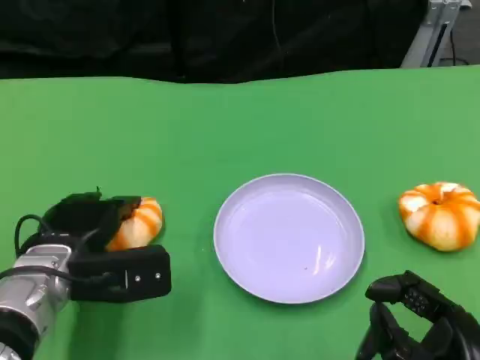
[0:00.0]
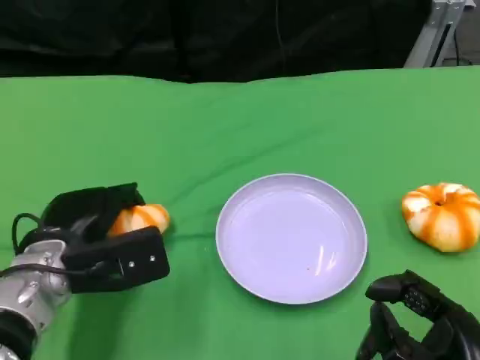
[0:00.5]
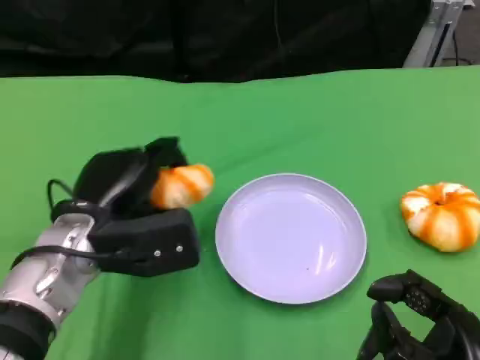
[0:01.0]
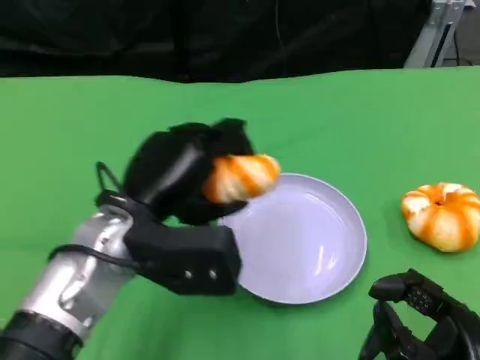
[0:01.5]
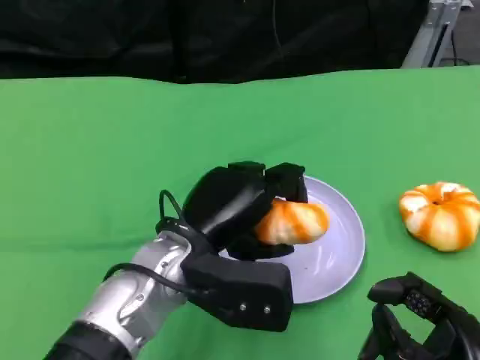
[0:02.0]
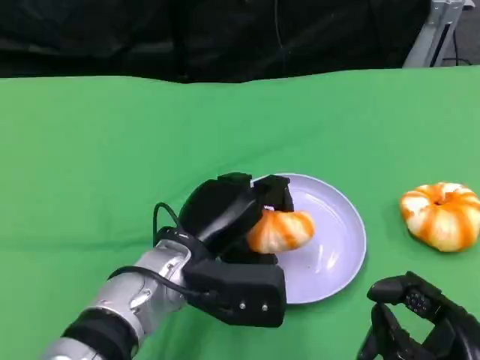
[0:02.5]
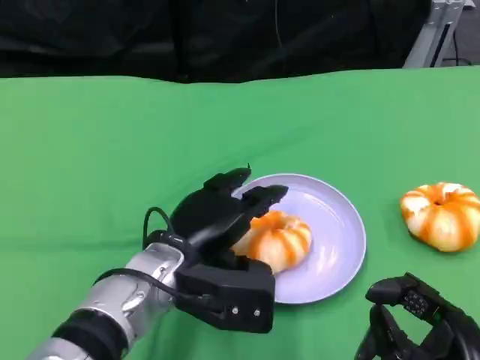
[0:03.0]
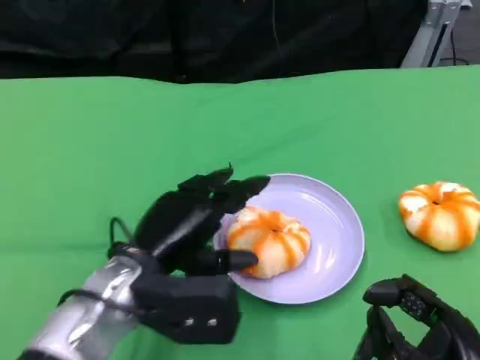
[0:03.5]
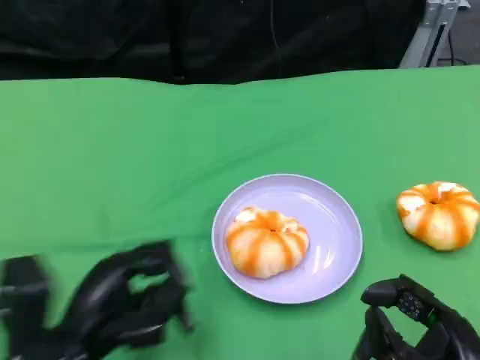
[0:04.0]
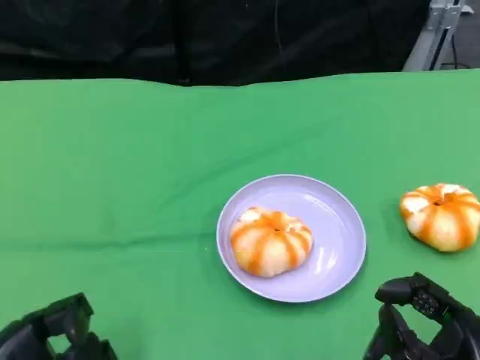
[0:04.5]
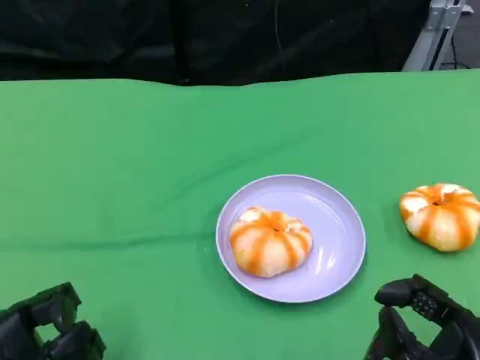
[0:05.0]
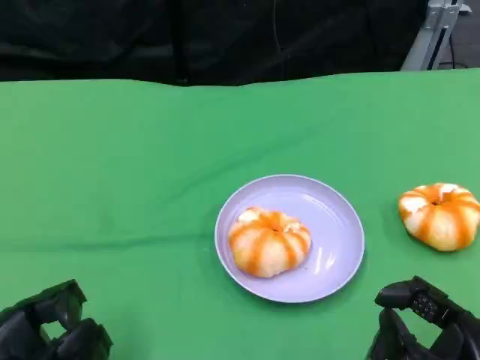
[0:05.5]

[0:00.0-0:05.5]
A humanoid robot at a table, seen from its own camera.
Task of the whole recording: Grasp the bread from the table and place it into the plate.
0:00.0 to 0:02.0: The left hand heads to the right, covering about 10 cm.
0:02.0 to 0:03.5: The left hand travels to the left by approximately 5 cm.
0:03.5 to 0:05.5: The left hand shifts some 20 cm to the left and backward.

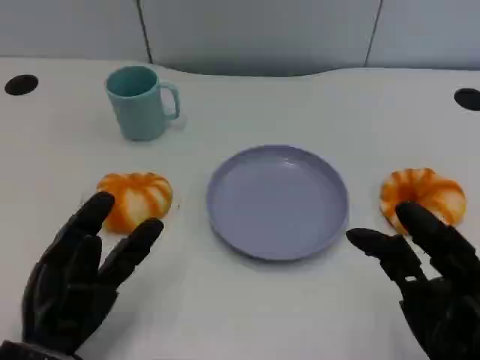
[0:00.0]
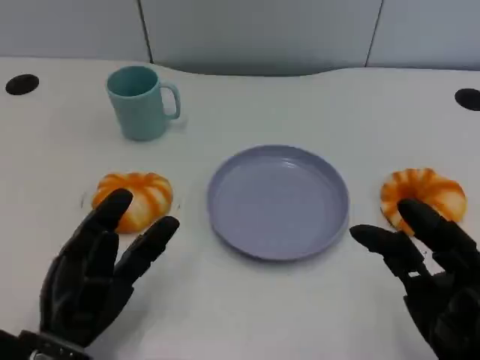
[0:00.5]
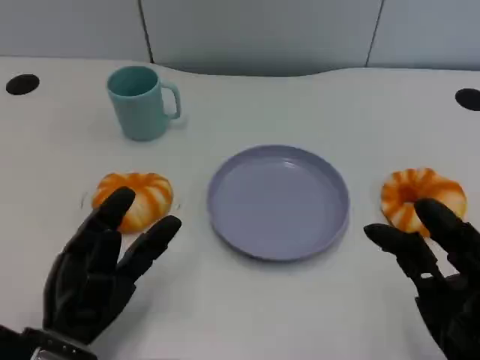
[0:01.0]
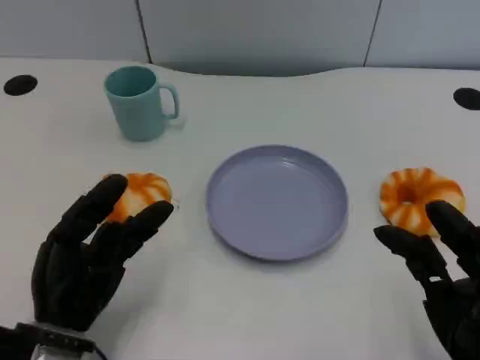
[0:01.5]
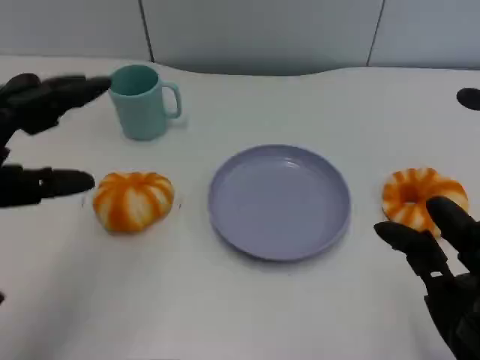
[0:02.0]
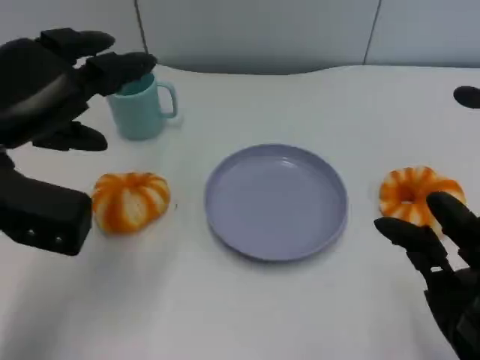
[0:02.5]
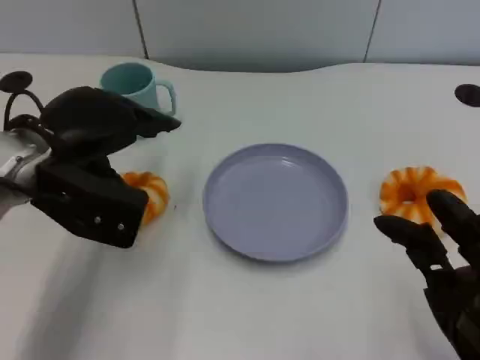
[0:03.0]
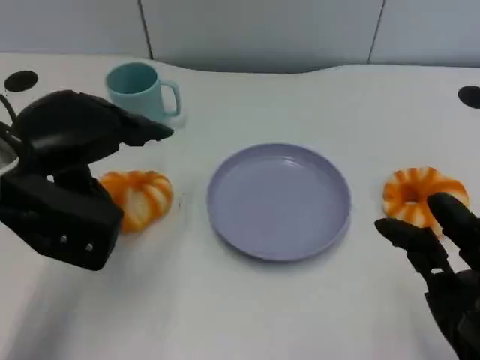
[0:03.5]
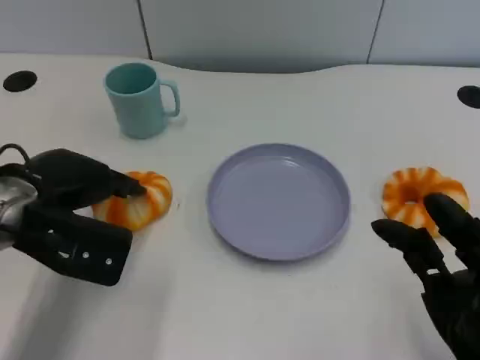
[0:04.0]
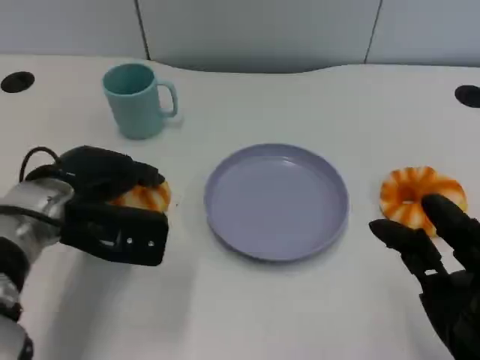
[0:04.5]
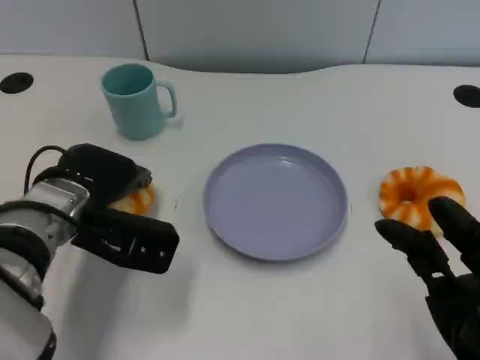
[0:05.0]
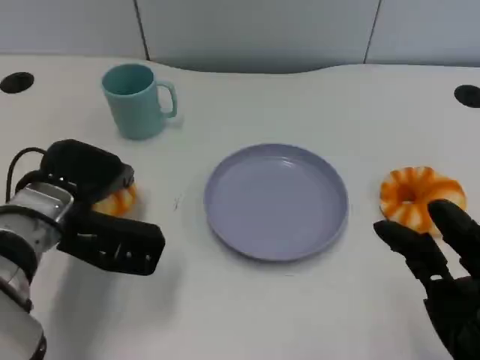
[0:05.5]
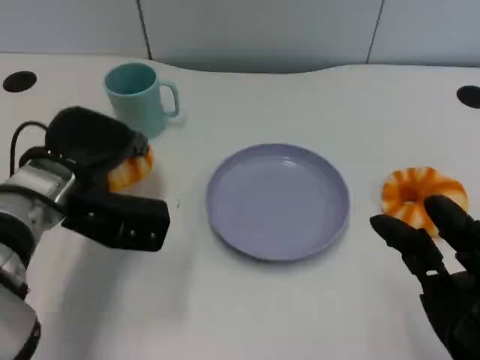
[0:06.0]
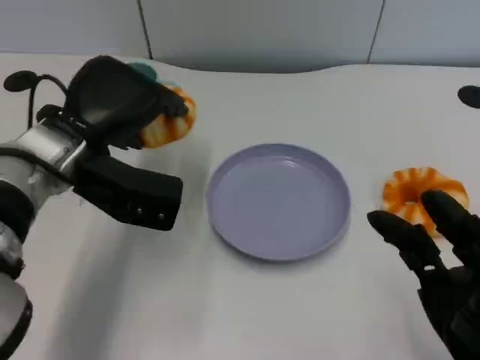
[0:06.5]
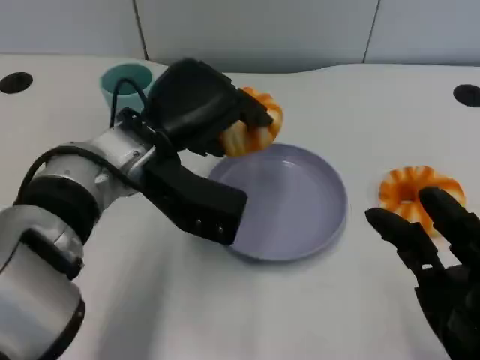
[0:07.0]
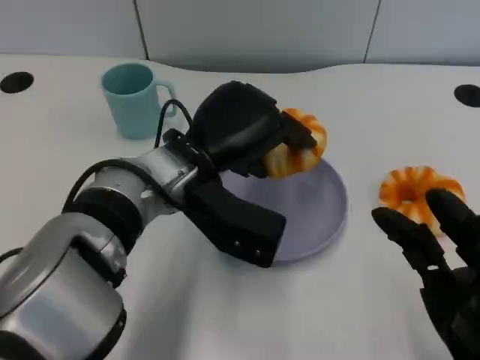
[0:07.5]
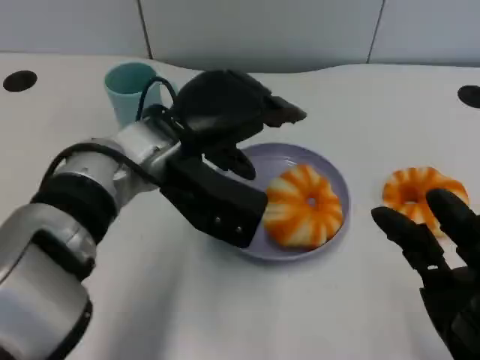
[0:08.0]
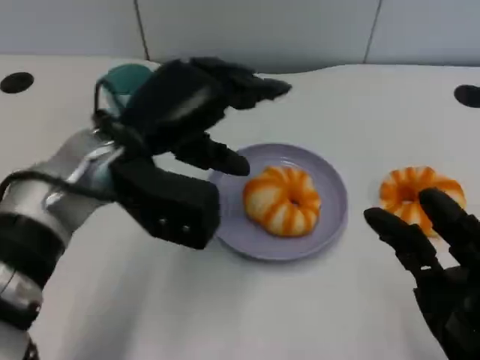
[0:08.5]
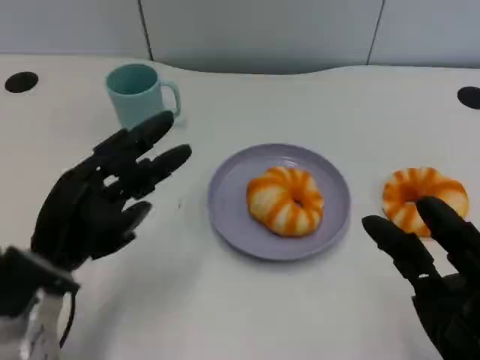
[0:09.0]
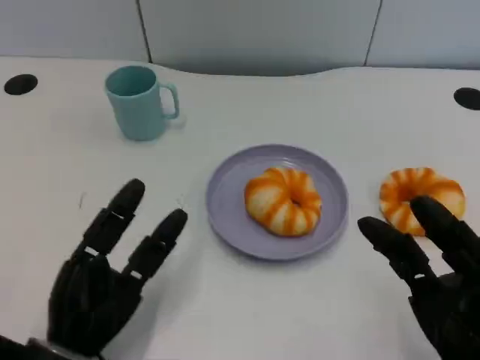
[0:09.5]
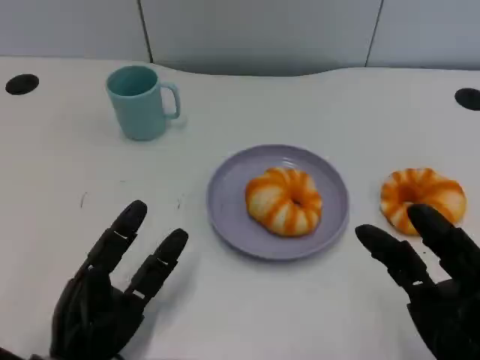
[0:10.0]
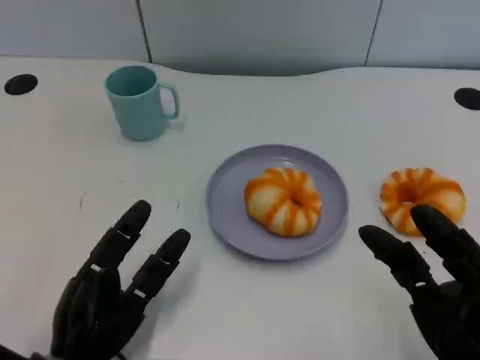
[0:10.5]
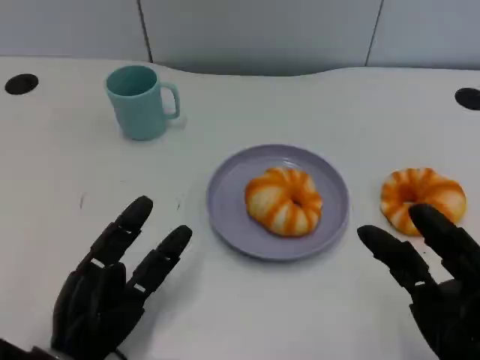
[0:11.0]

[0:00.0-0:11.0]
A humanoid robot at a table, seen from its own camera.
Task of the whole recording: Grasp the bread from the table and place it into the plate.
0:00.0 to 0:02.0: The left hand travels upward by roughly 15 cm.
0:02.0 to 0:03.5: The left hand shifts some 10 cm forward and to the right.
0:03.5 to 0:05.5: The left hand moves downward, about 10 cm.
0:05.5 to 0:07.5: The left hand is displaced to the right by approximately 15 cm.
0:07.5 to 0:09.0: The left hand heads to the left, backward and downward, covering approximately 20 cm.
0:09.0 to 0:11.0: The left hand shifts roughly 10 cm downward.

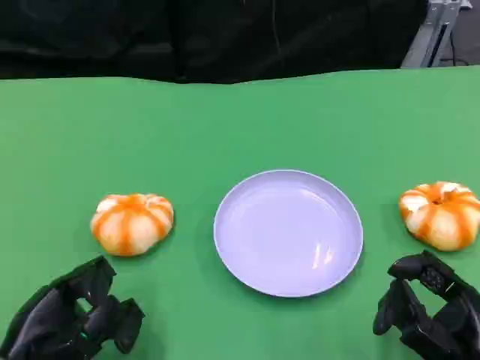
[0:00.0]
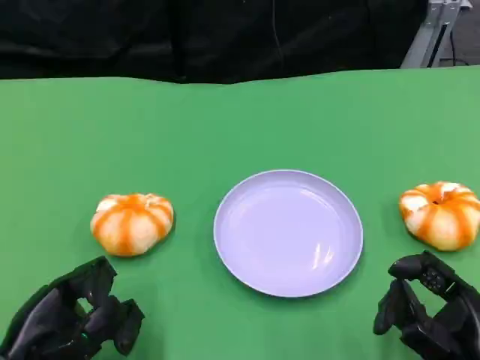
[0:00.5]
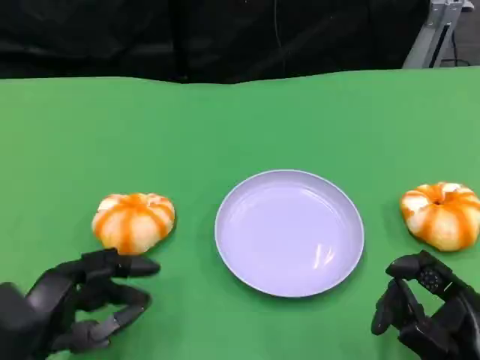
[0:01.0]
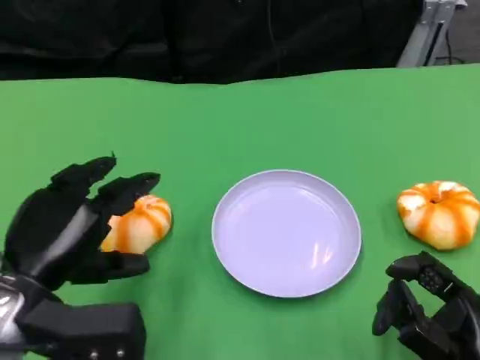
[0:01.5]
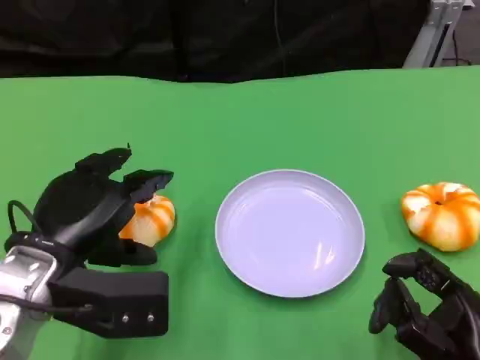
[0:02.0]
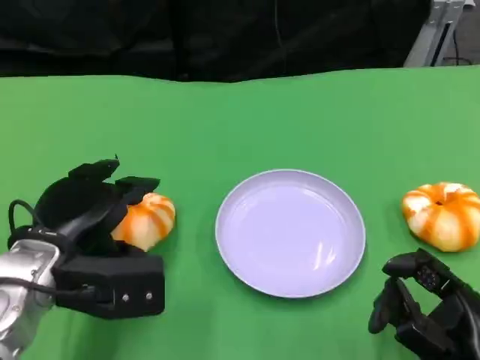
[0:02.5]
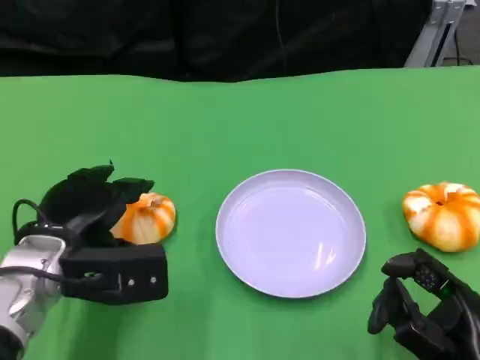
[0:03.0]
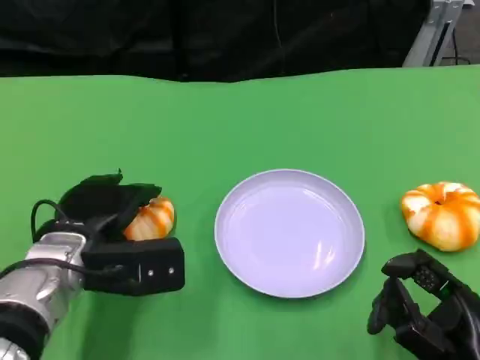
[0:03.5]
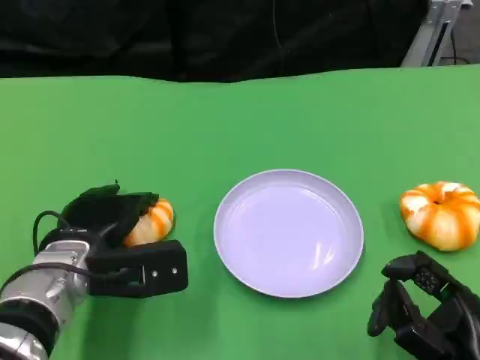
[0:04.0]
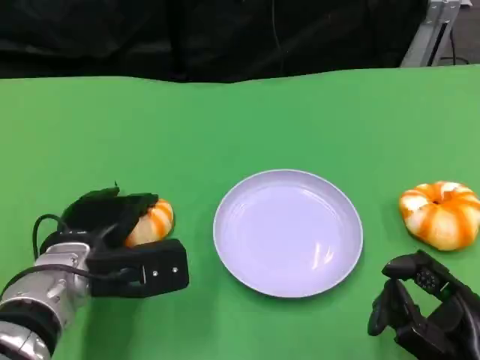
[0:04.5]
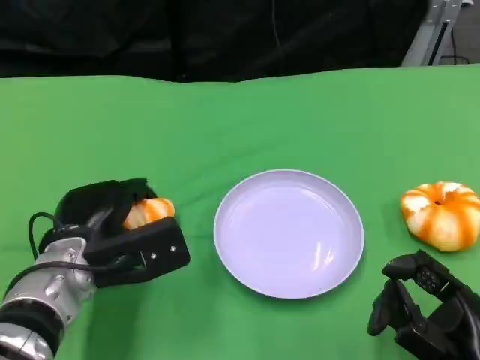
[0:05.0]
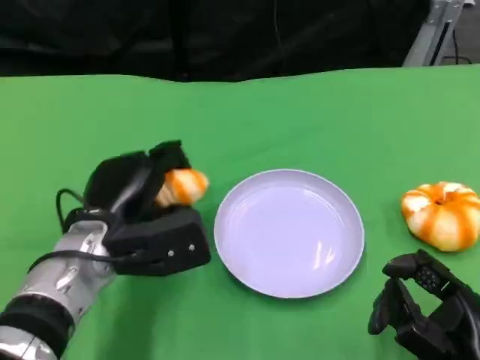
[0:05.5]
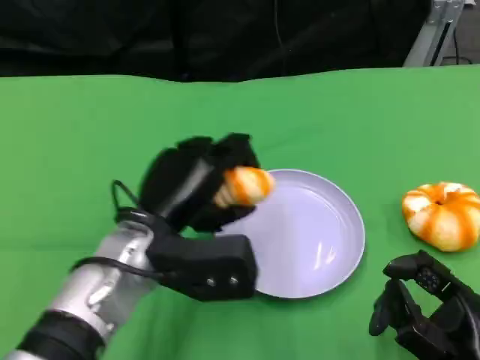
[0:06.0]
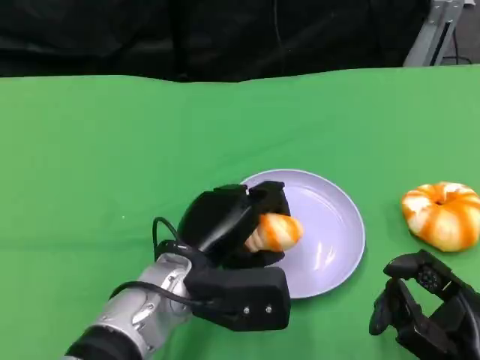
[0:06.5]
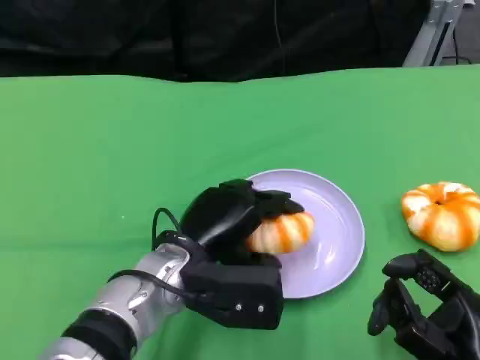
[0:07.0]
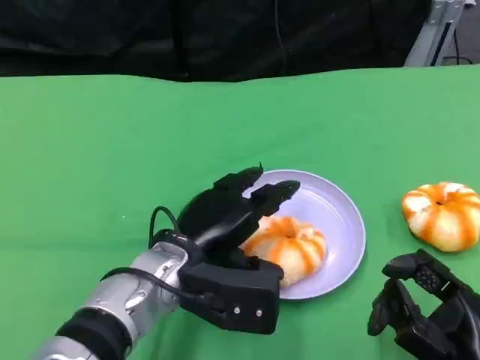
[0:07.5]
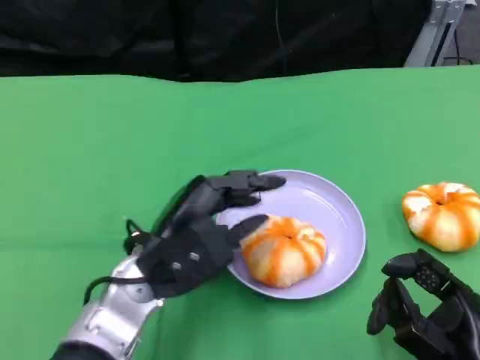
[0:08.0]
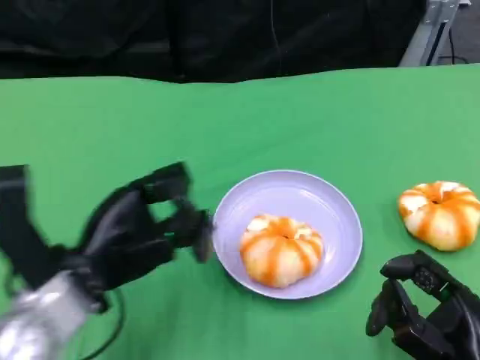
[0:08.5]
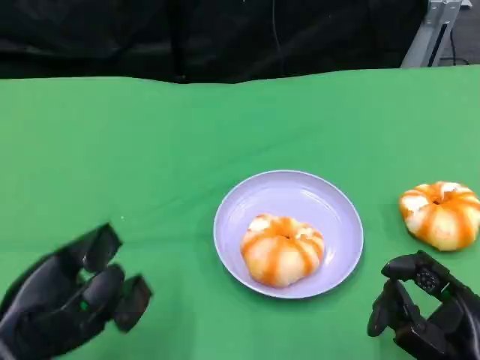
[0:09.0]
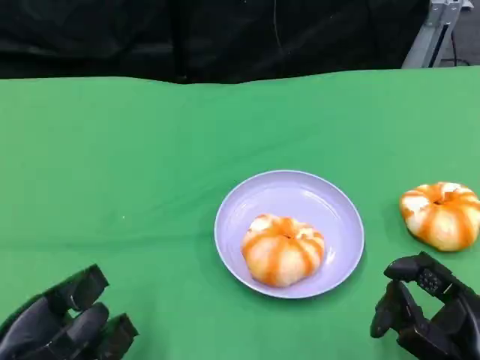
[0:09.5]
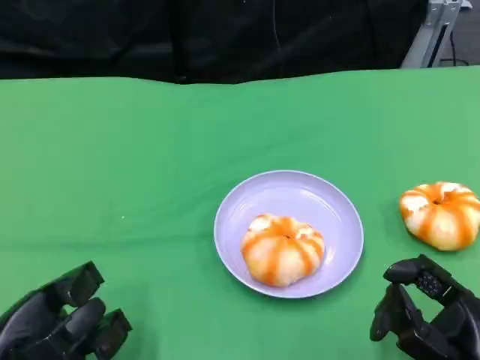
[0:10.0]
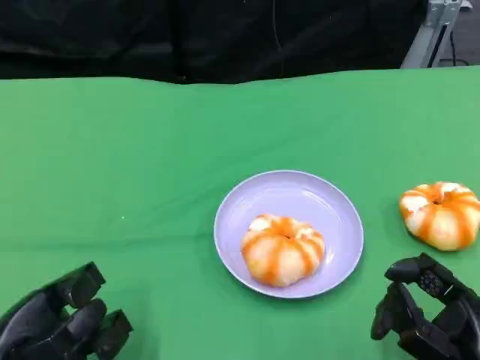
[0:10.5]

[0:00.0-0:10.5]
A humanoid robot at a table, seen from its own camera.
Task of the whole recording: Grasp the bread from the table and place it into the plate.
0:00.0 to 0:02.0: The left hand shifts some 10 cm upward, forward and to the right.
0:02.0 to 0:04.0: The left hand goes roughly 5 cm downward.
0:04.0 to 0:06.5: The left hand travels to the right by some 10 cm.
0:06.5 to 0:08.5: The left hand shifts approximately 10 cm to the left.
0:08.5 to 0:10.5: The left hand goes about 10 cm to the left, downward and backward.
